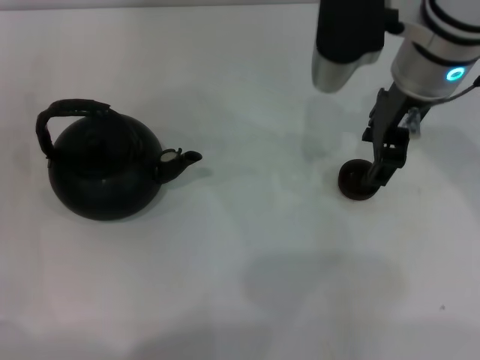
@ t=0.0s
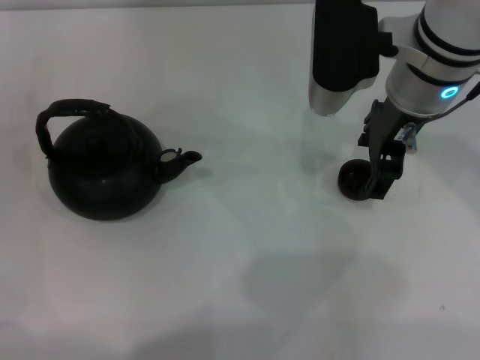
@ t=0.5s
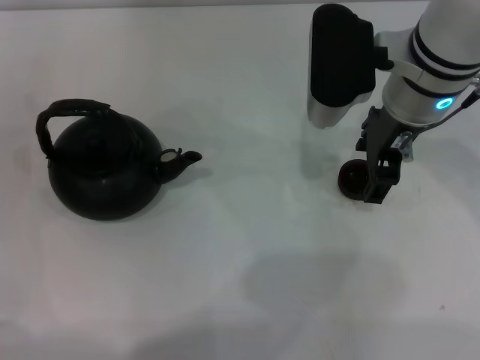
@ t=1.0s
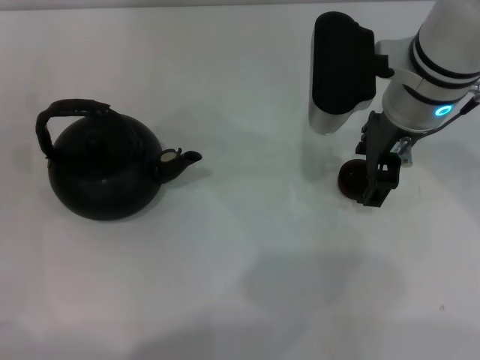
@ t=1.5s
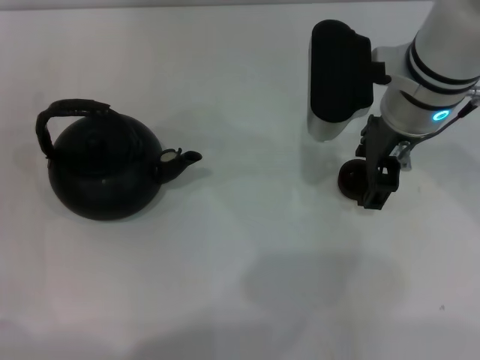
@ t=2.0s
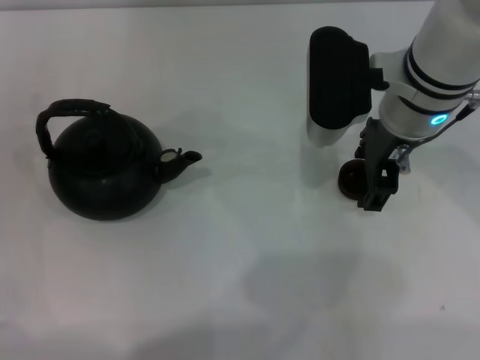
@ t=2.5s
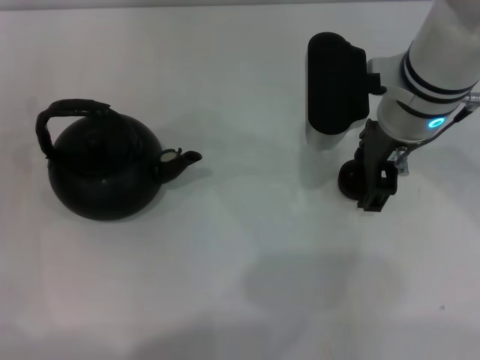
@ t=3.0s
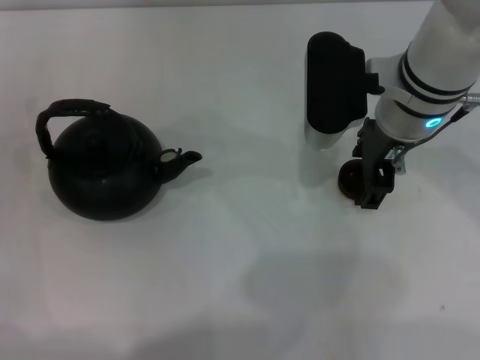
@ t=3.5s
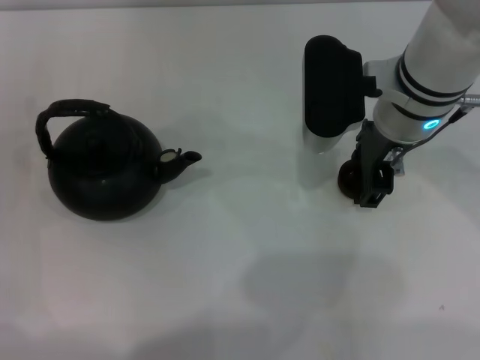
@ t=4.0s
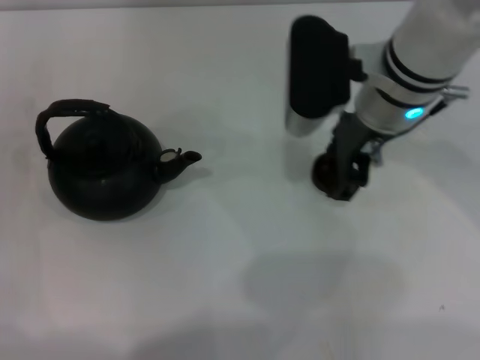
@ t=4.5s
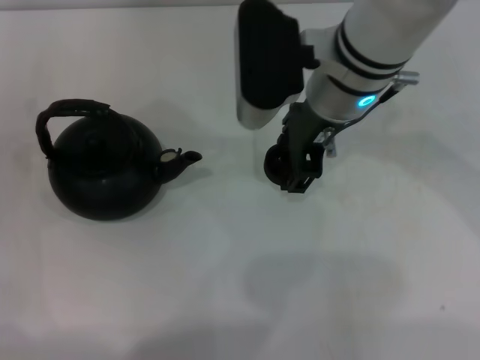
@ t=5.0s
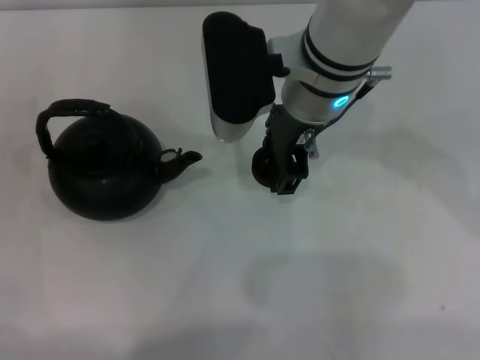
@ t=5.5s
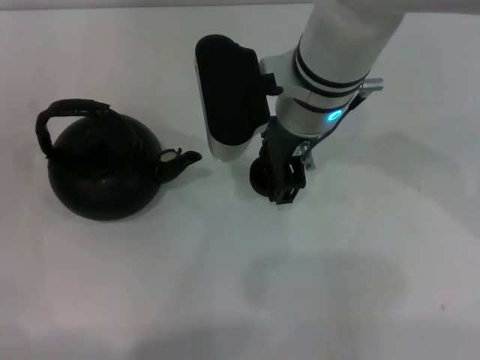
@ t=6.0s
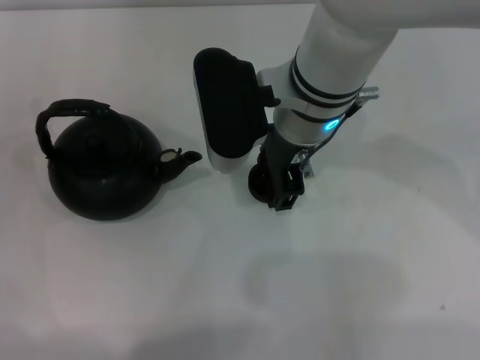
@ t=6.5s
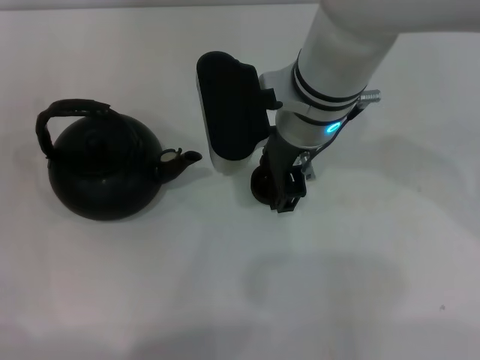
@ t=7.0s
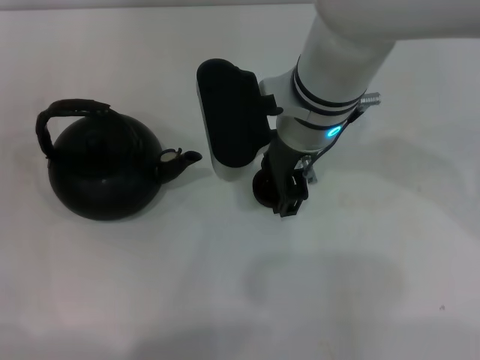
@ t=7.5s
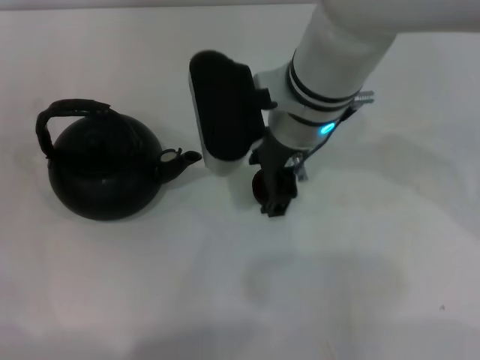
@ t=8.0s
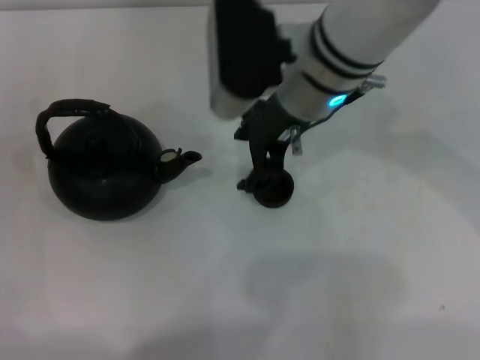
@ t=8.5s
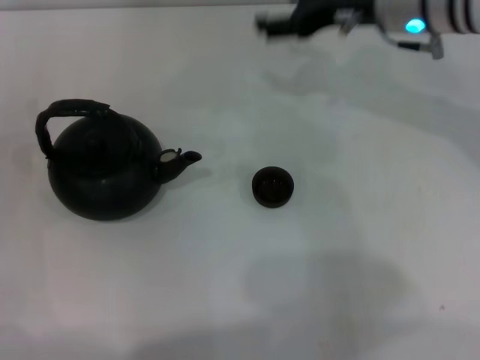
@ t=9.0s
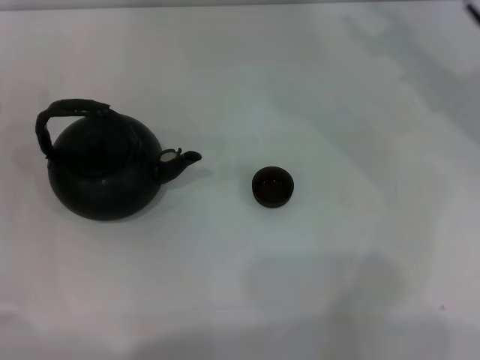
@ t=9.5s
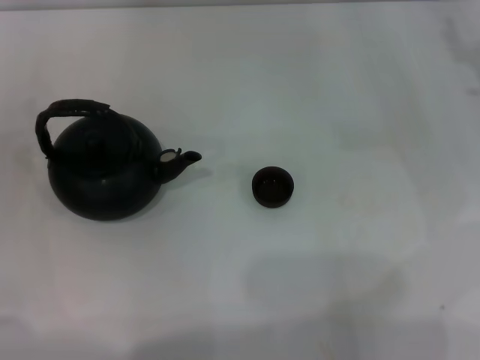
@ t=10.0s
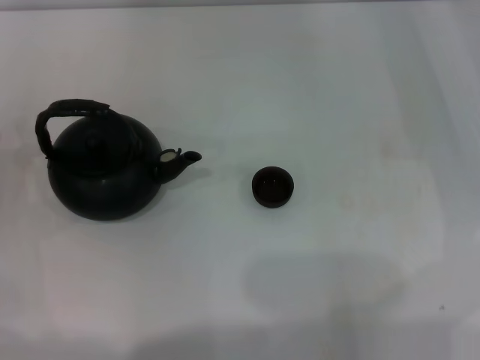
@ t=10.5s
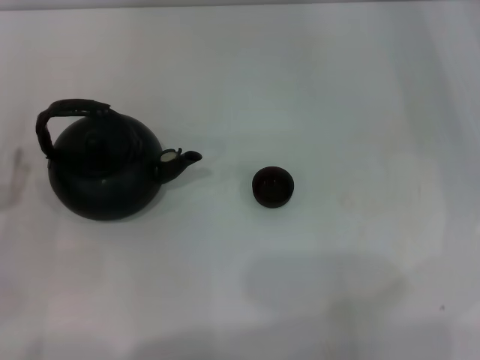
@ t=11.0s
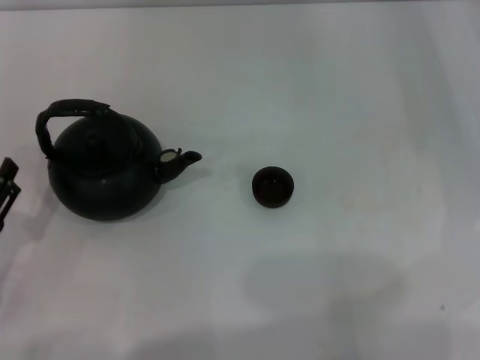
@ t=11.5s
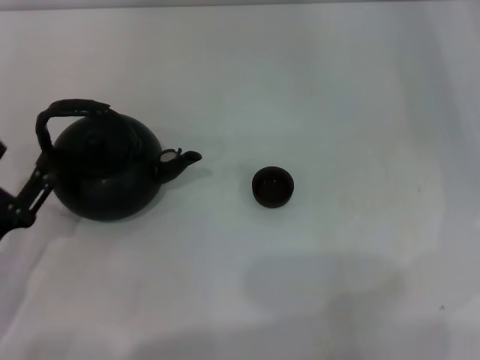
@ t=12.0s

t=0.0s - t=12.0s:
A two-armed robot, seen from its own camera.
Task of the whole recording: Grasp the handle of the teapot with one hand and pour tea into the teacup.
Step, t=0.0s - t=4.0s: Pick up the teacup with the right gripper.
Step, t=4.5s - t=8.5s: Place the teacup in the center of view with the right gripper.
t=0.0s - t=2.0s: The right gripper opens.
t=2.0s - t=4.0s: The right gripper closes.
t=4.0s - t=6.0s: The right gripper travels to the left by about 10 cm.
t=6.0s - t=8.0s: The right gripper opens up.
t=8.0s - t=10.0s: The right gripper heads to the right, covering about 30 cm.
t=10.0s - t=12.0s: The left gripper moves backward, approximately 10 cm.

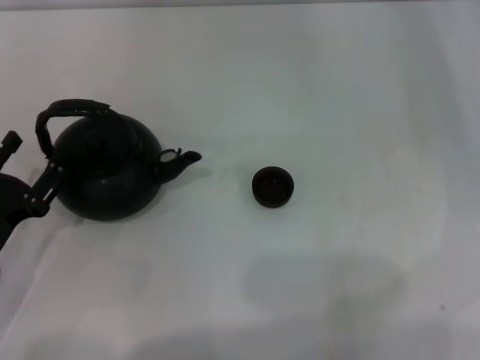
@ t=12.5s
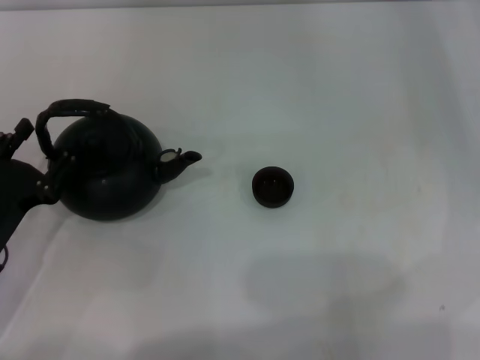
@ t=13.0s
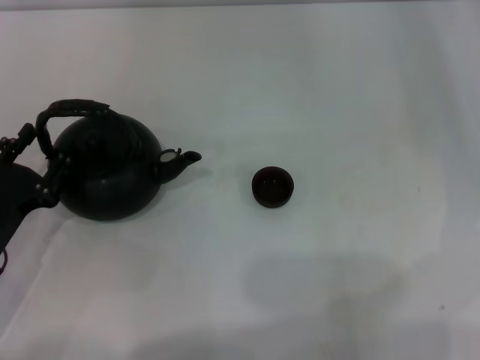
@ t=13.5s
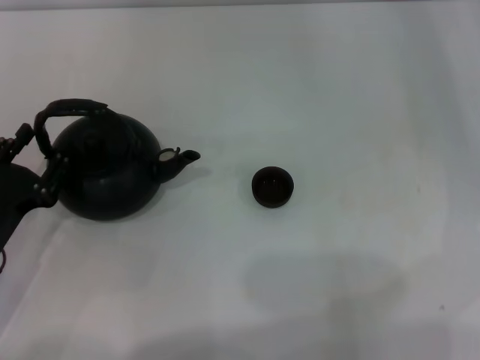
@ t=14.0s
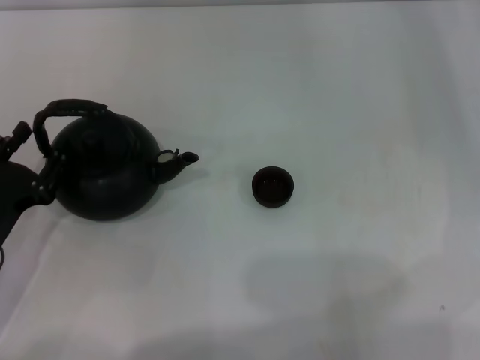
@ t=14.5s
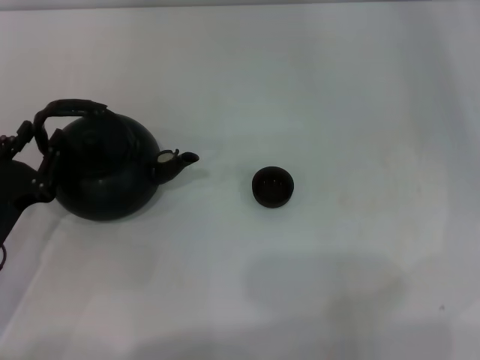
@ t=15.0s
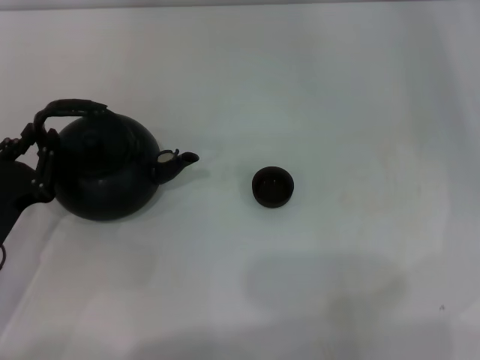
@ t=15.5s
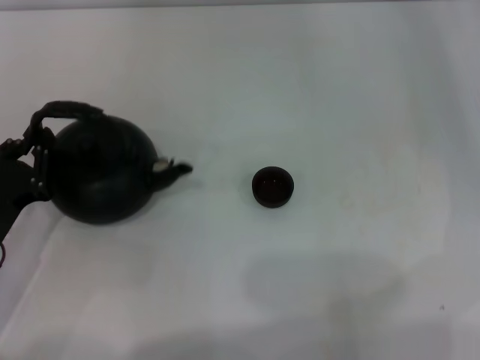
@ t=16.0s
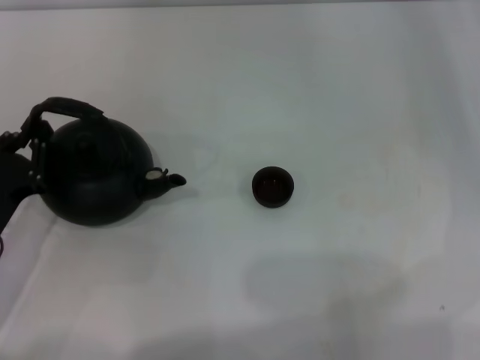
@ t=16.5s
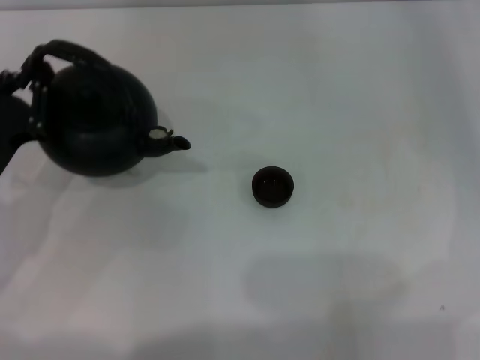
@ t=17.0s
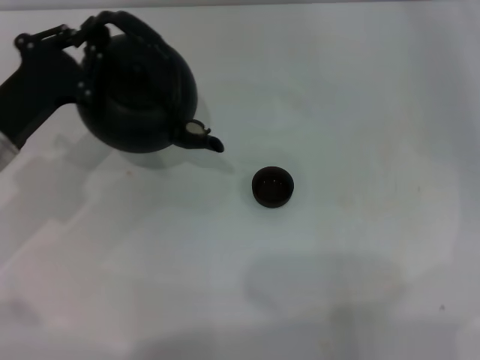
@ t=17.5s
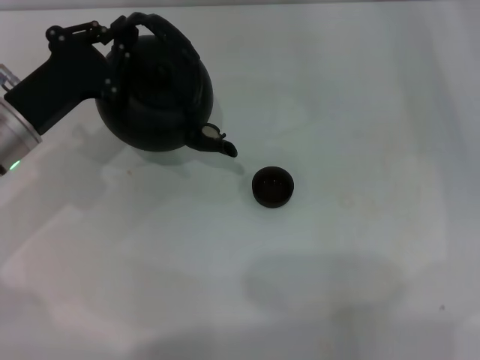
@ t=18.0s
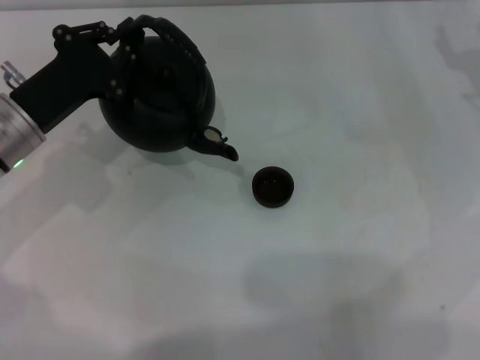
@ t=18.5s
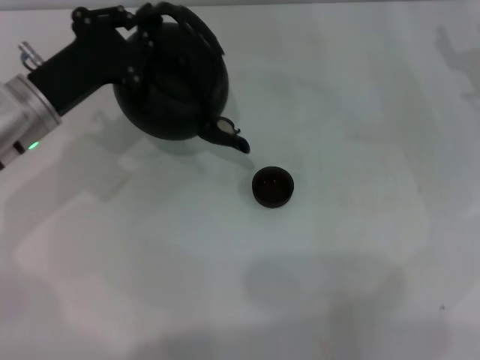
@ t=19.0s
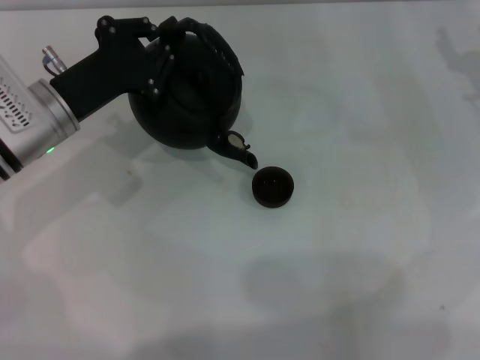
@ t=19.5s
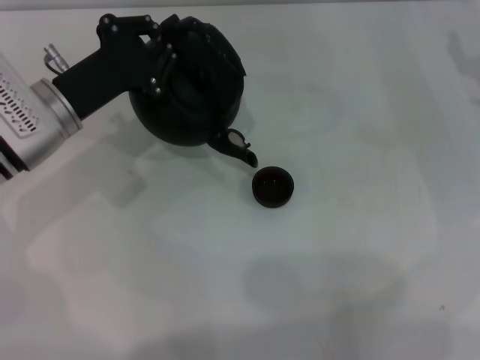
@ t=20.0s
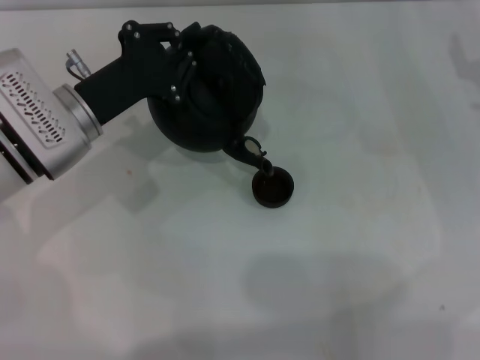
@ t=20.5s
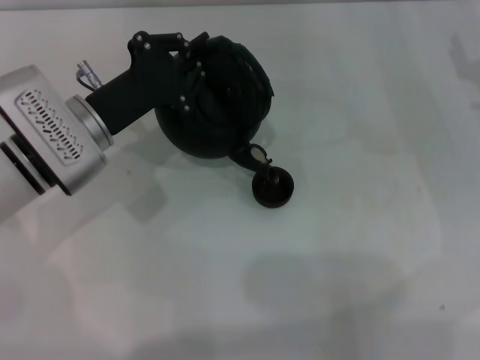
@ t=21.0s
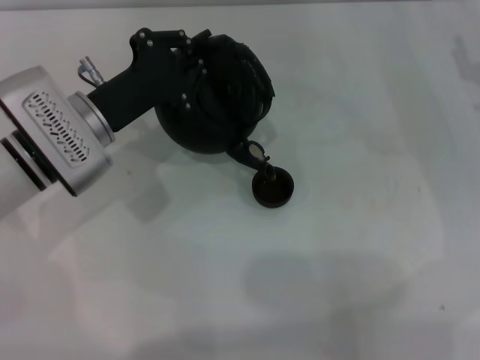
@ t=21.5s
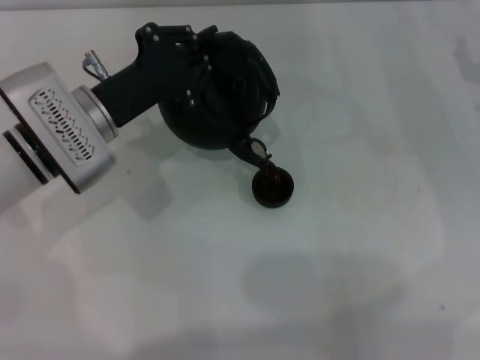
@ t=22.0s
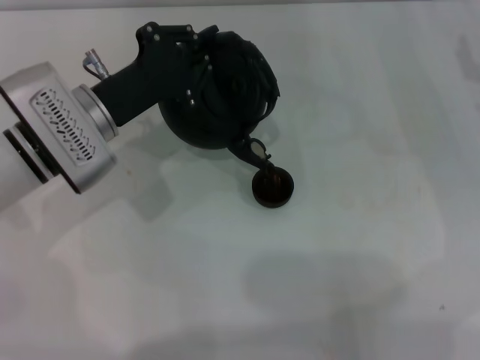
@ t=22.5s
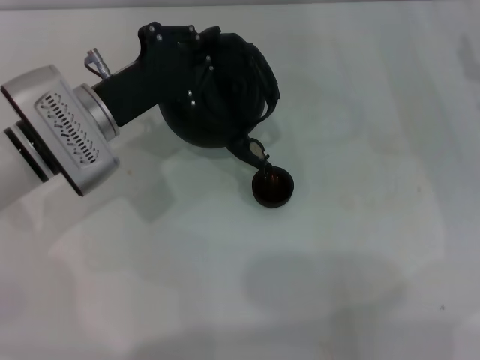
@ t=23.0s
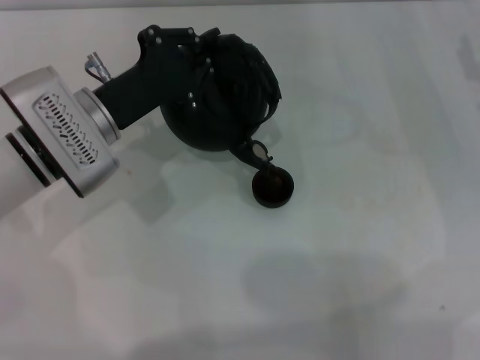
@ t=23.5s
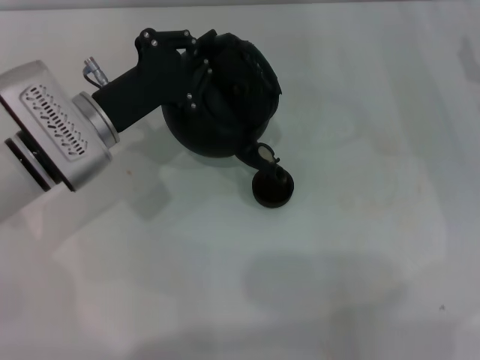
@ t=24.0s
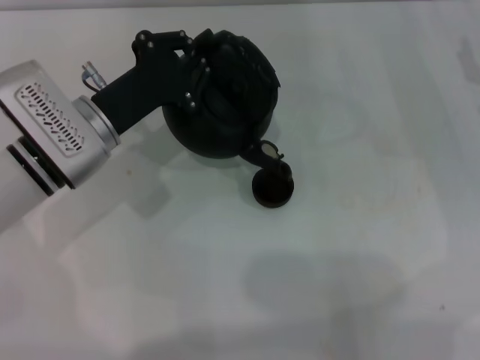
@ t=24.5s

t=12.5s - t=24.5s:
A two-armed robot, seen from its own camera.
Task of the whole recording: Grasp the handle of the teapot with one hand and pour tea into the teacup.
Step, t=12.5s - t=17.0s: Pick up the teapot with the left gripper.
t=12.5s - t=14.5s: The grippers make only small movements.
t=14.5s - t=16.5s: The left gripper closes up.
t=16.5s - t=18.5s: The left gripper shifts some 15 cm forward and upward. The right gripper is displaced to the left by approximately 5 cm.
t=18.5s - t=20.5s: The right gripper closes. The left gripper shifts by approximately 5 cm.
t=20.5s - t=22.5s: The right gripper closes.
t=22.5s - t=24.5s: The grippers make only small movements.

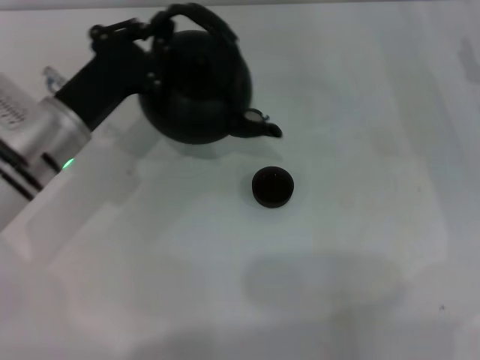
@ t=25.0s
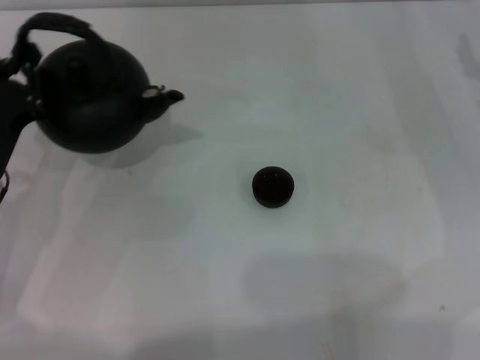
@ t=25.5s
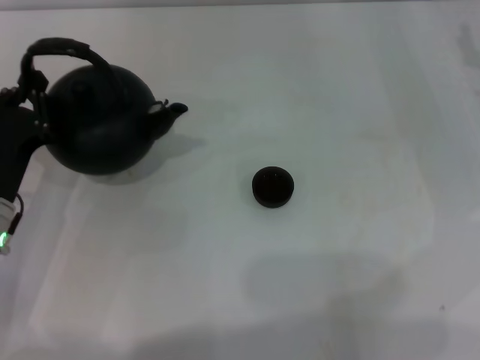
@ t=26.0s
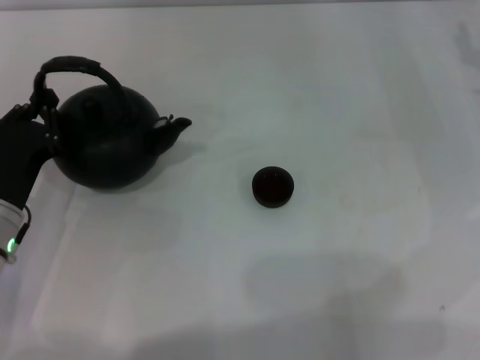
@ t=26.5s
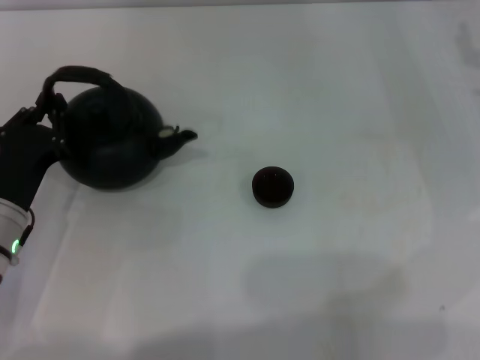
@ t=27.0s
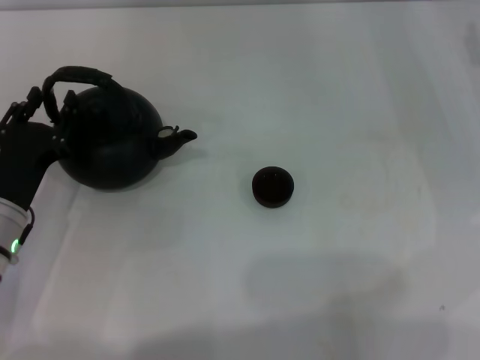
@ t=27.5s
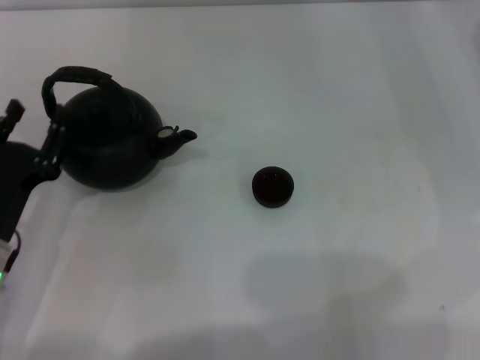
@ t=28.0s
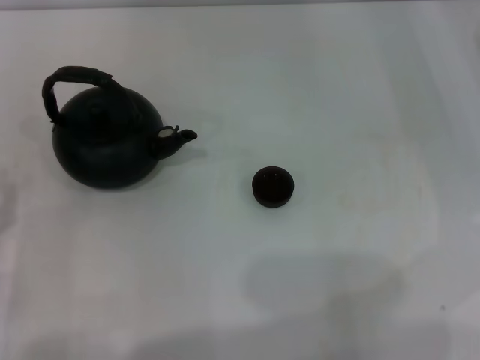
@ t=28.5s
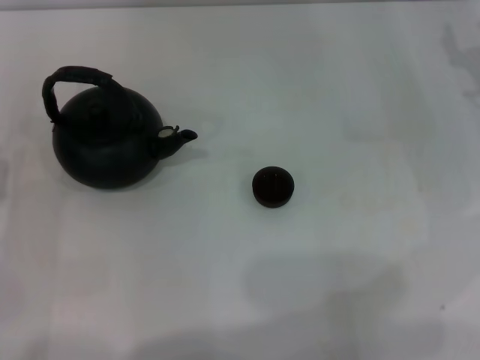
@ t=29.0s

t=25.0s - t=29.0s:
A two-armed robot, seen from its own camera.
Task of the whole recording: Grasp the handle of the teapot with one hand and pour tea into the teacup.
Step, t=25.5s - t=28.0s: Put down the teapot with the left gripper.
t=25.0s - t=27.0s: The left gripper moves backward and downward, some 10 cm.
t=27.0s - t=29.0s: The left gripper heads to the left and backward, covering roughly 10 cm, and opens up.
